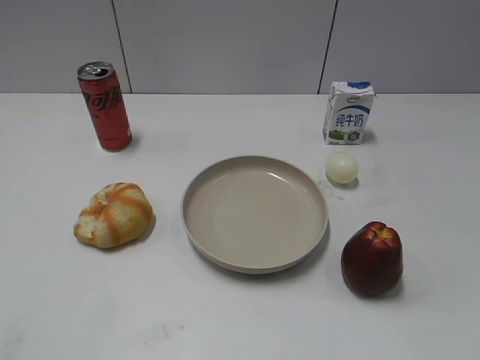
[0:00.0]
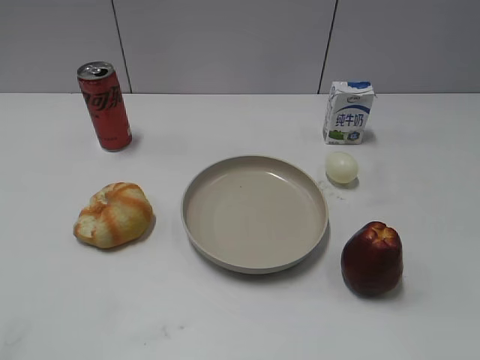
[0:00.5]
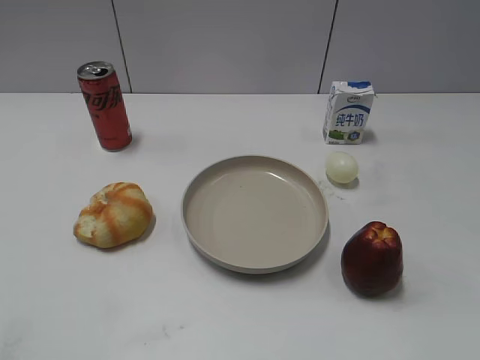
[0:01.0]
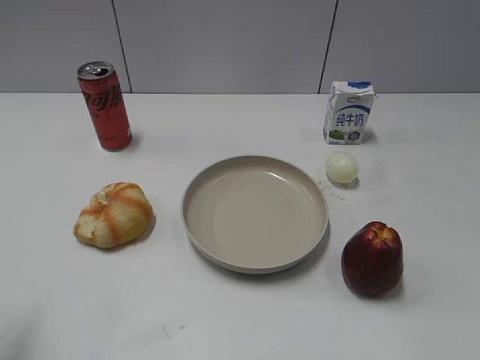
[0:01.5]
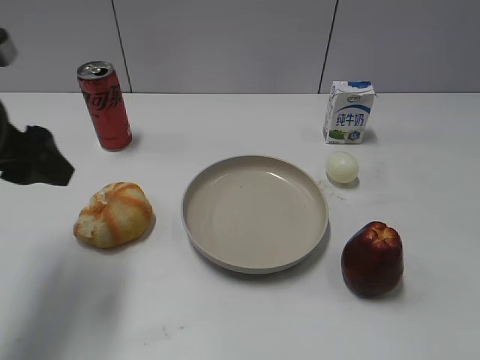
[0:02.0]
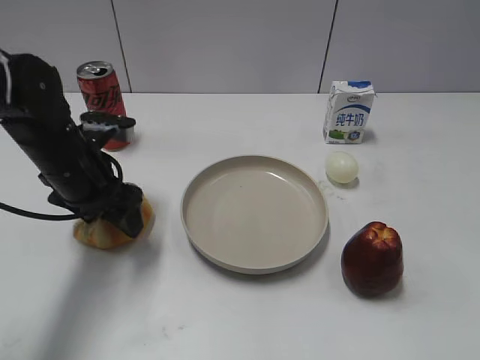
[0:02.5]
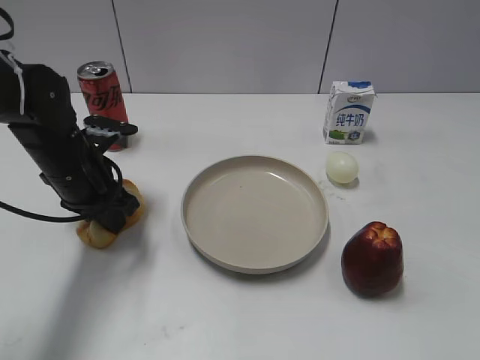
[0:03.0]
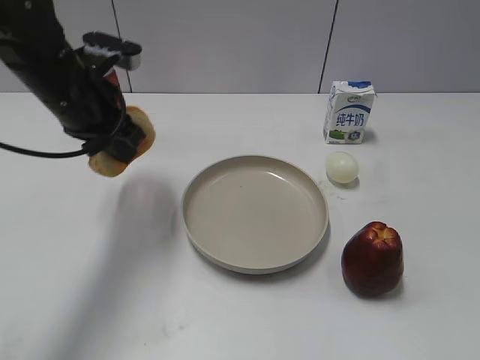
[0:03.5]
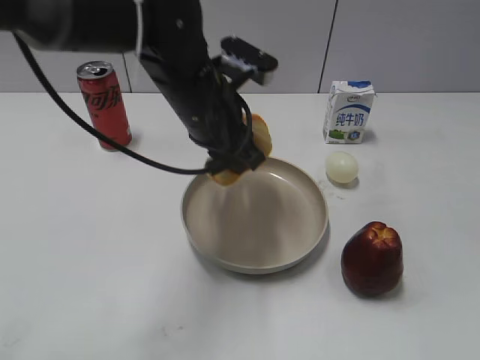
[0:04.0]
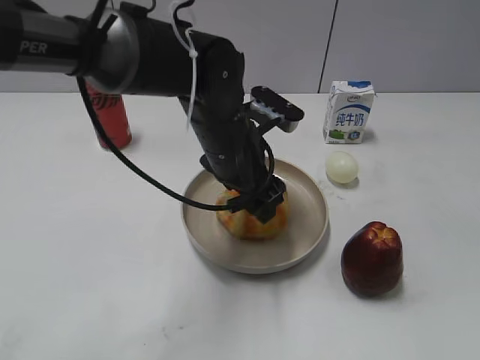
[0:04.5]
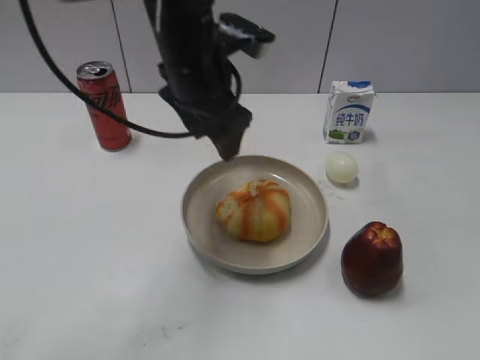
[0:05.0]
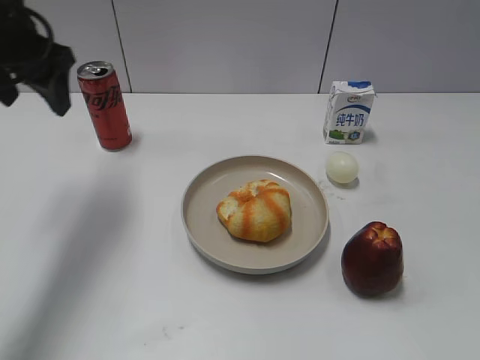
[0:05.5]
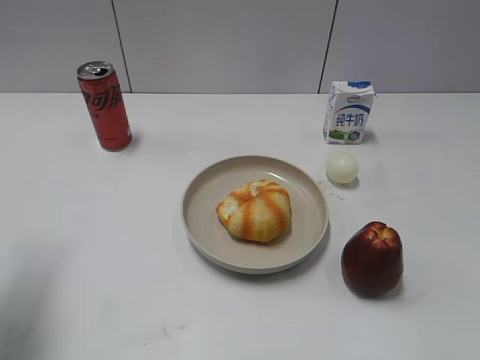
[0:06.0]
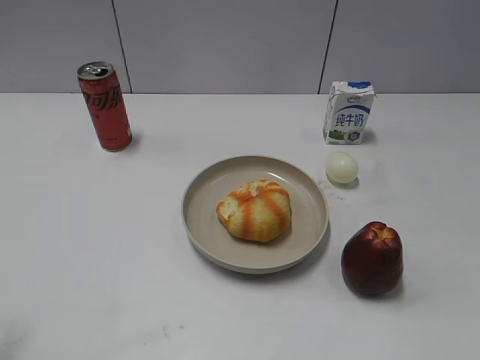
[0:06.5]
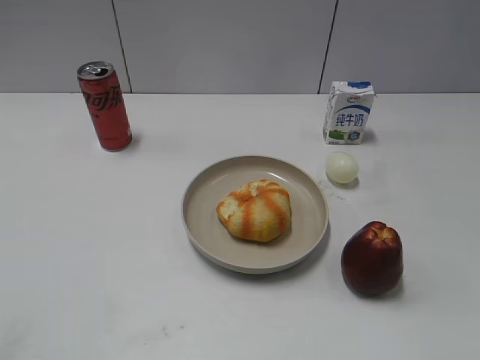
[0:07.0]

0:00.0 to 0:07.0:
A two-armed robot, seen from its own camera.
Step, 0:01.0 to 0:03.0: Grasp the round bread with left gripper.
Step, 0:03.5 to 0:04.5: Place the round bread on the plate with left gripper.
0:02.0 to 0:03.5: The left gripper shifts some 10 cm forward and to the right, moves roughly 15 cm downward and comes back, and closes.
0:03.5 to 0:05.0: The left gripper shifts about 10 cm to the right, and opens its fingers.
0:05.0 to 0:07.0: The left gripper heads backward and to the left, covering roughly 40 cm.

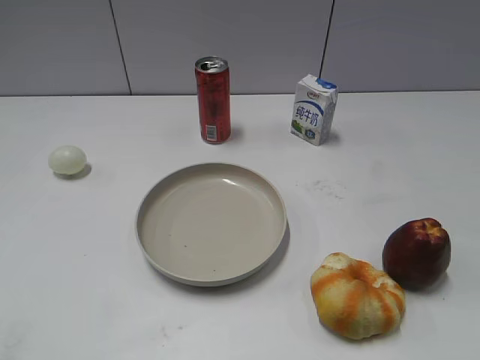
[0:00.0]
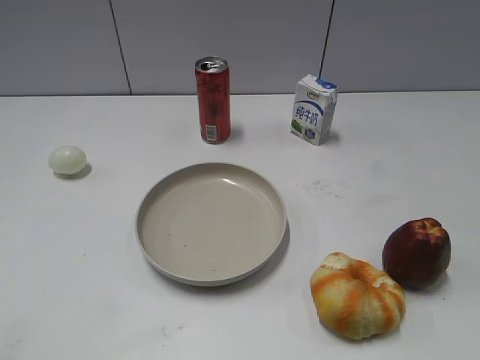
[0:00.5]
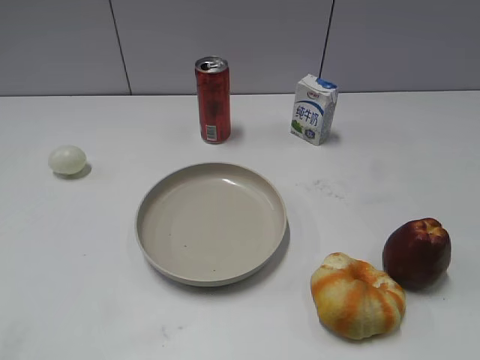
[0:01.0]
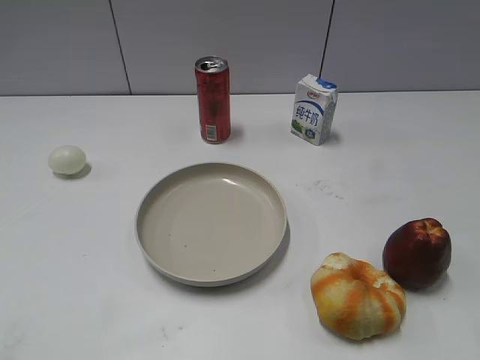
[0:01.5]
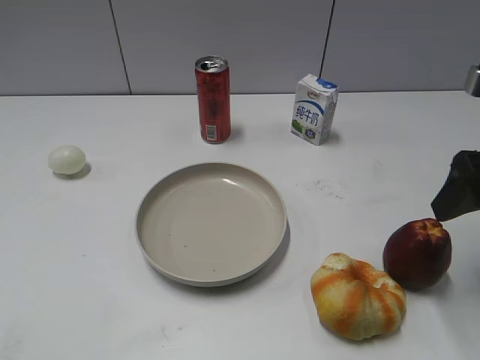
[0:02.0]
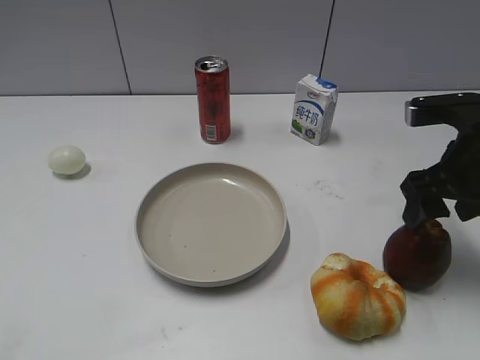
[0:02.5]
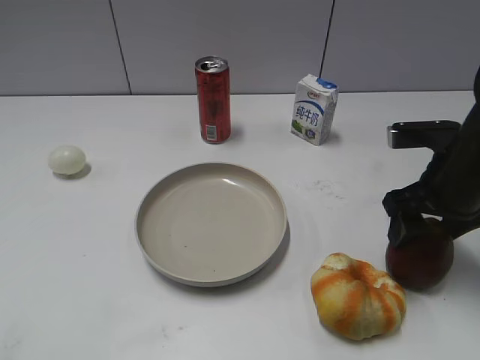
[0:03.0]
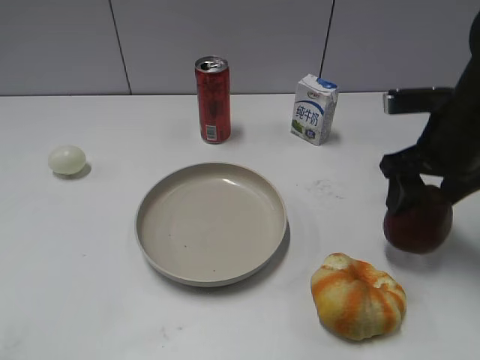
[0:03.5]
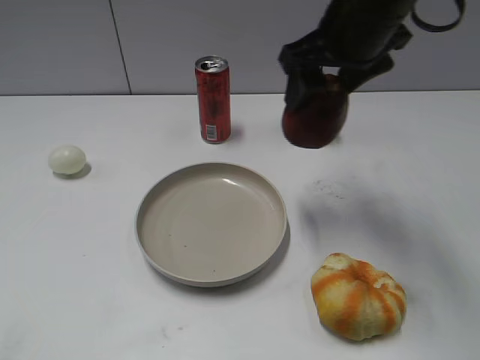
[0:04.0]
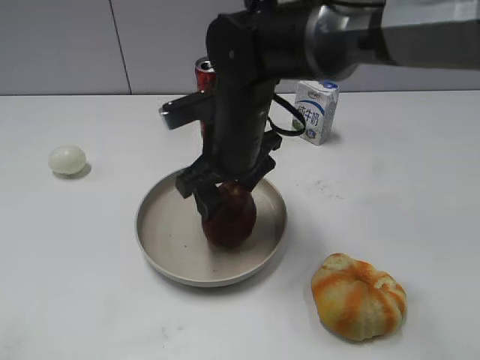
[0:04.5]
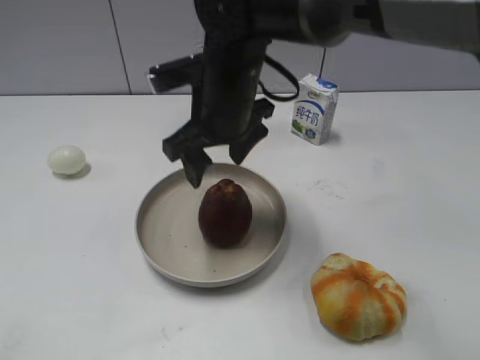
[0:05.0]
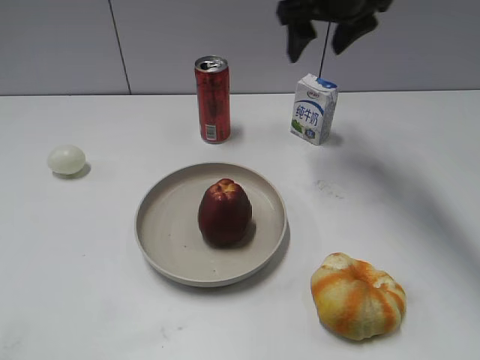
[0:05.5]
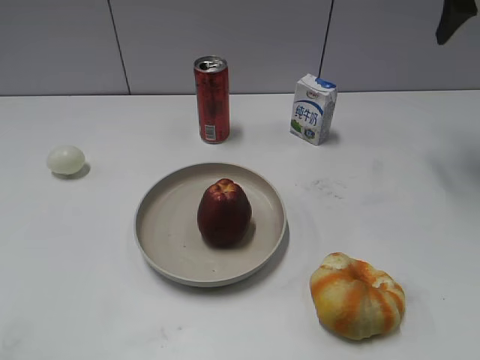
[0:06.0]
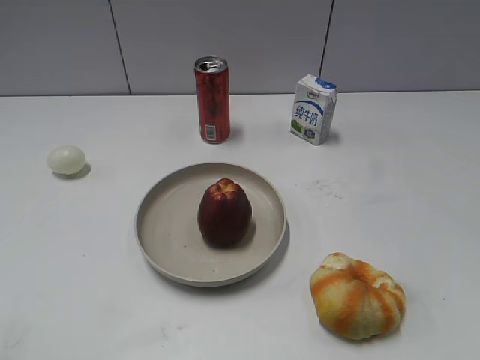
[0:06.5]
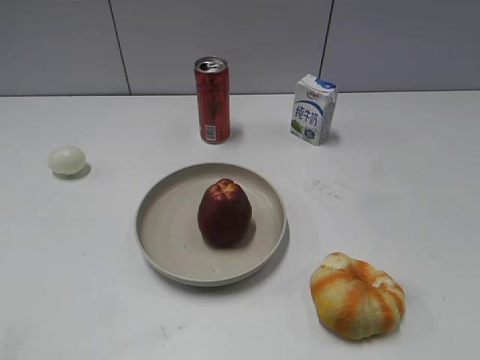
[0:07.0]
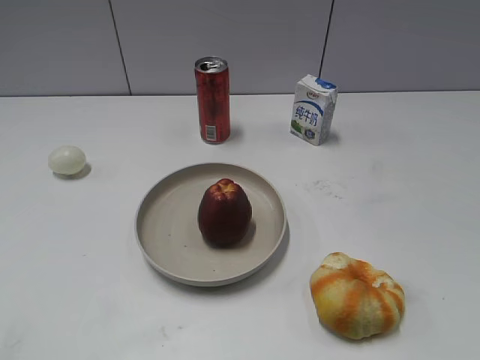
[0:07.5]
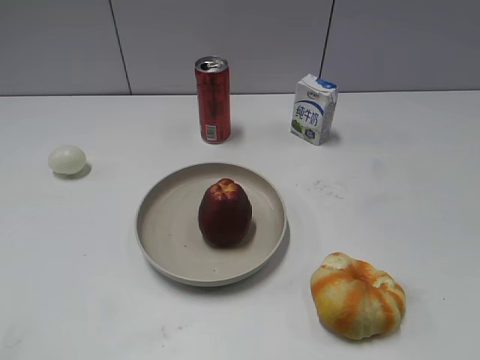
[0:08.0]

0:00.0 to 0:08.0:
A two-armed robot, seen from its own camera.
Step, 0:02.0 to 0:03.0: Grasp the apple with right gripper.
Step, 0:03.5 to 0:04.5: Place the apple on the plate with right gripper.
0:02.0 to 0:04.0: The right gripper moves to the left and forward, some 20 cm.
0:04.0 to 0:06.0: The right gripper is displaced to the right and forward by roughly 20 cm.
0:06.0 to 0:08.0: The right gripper travels backward by approximately 40 cm.
